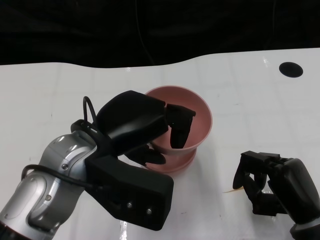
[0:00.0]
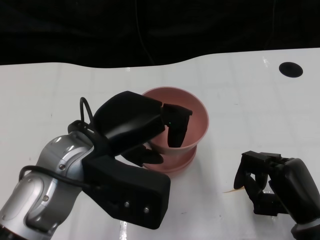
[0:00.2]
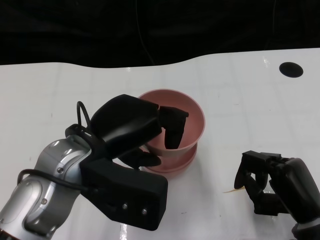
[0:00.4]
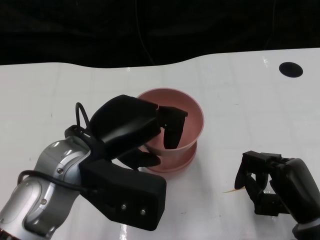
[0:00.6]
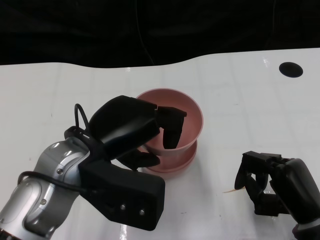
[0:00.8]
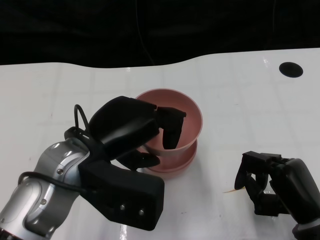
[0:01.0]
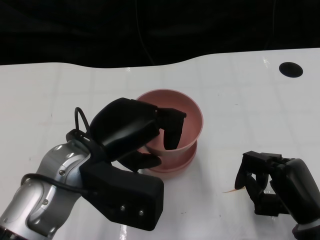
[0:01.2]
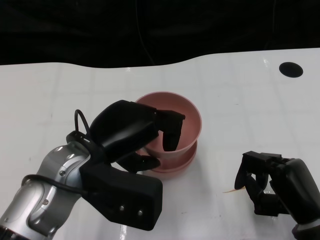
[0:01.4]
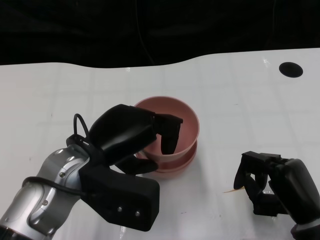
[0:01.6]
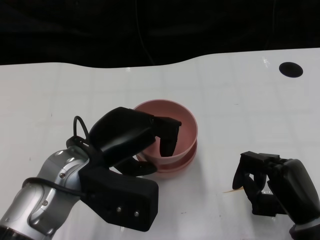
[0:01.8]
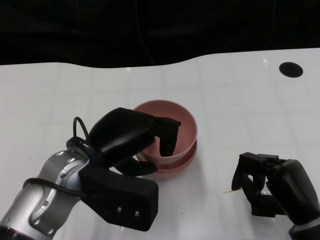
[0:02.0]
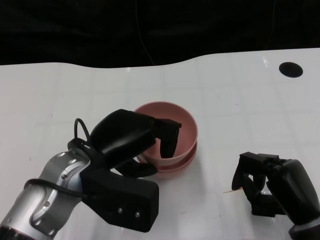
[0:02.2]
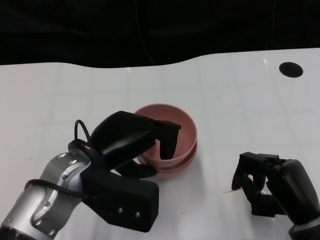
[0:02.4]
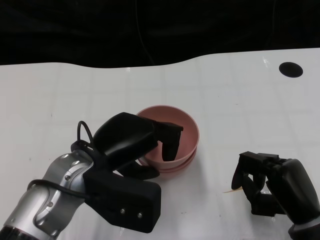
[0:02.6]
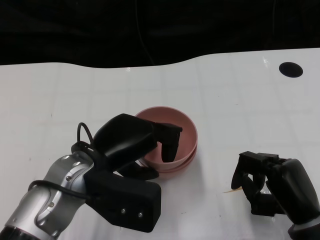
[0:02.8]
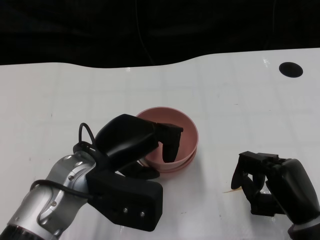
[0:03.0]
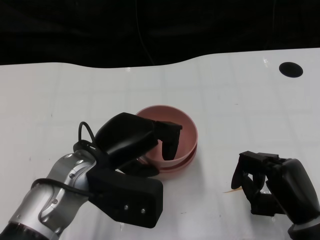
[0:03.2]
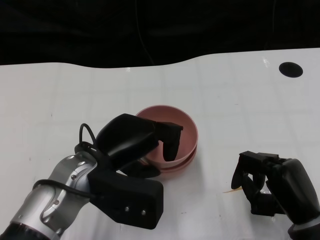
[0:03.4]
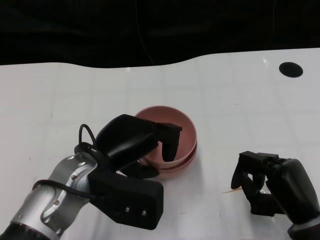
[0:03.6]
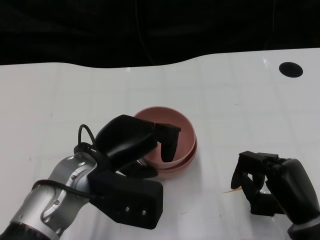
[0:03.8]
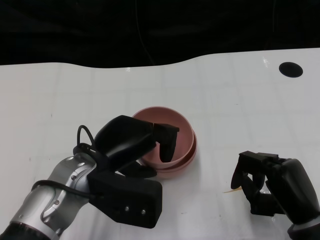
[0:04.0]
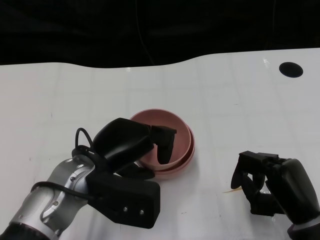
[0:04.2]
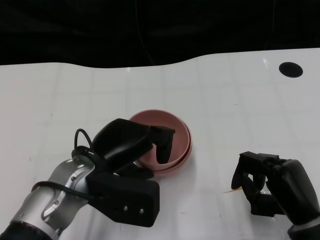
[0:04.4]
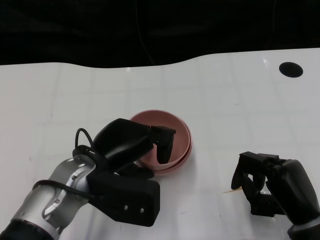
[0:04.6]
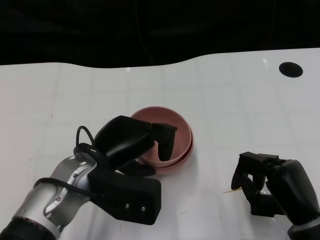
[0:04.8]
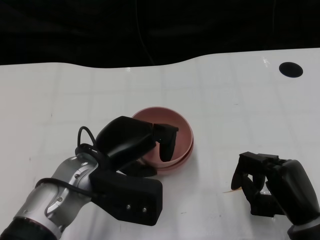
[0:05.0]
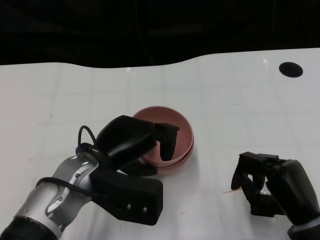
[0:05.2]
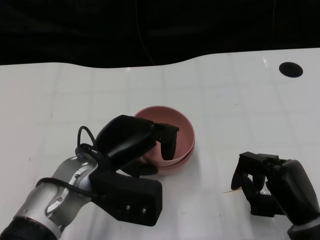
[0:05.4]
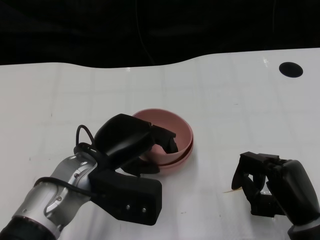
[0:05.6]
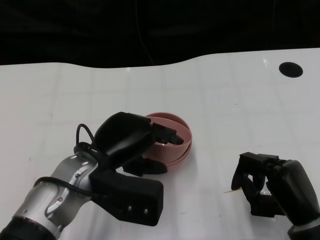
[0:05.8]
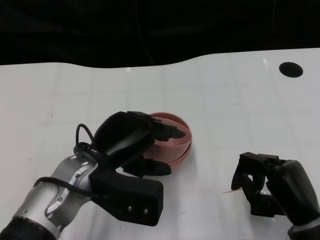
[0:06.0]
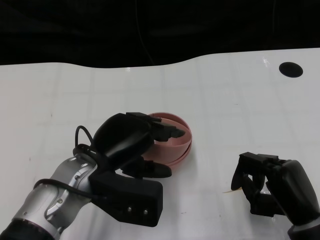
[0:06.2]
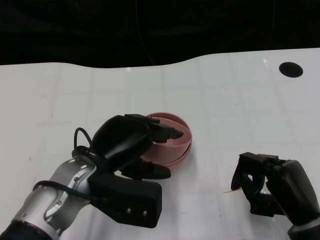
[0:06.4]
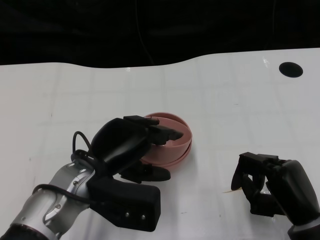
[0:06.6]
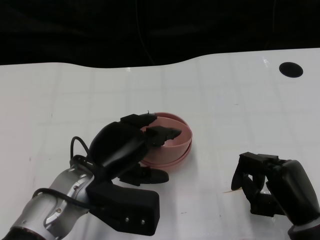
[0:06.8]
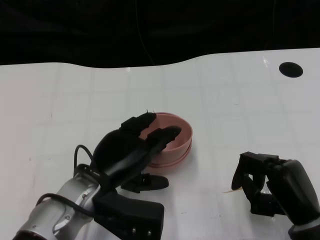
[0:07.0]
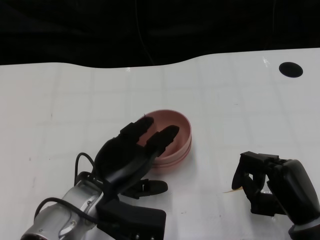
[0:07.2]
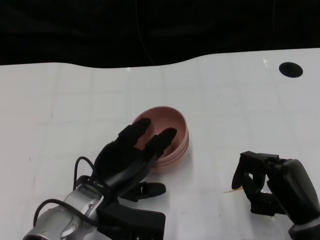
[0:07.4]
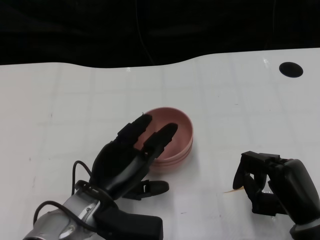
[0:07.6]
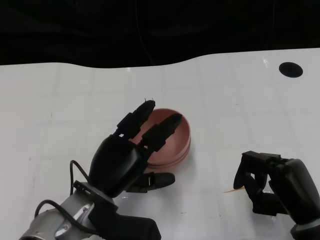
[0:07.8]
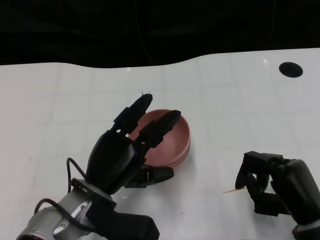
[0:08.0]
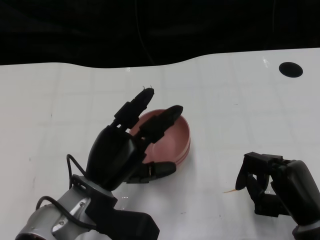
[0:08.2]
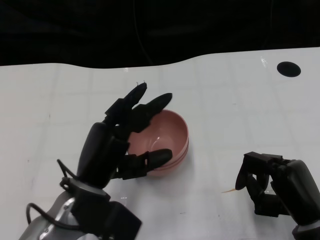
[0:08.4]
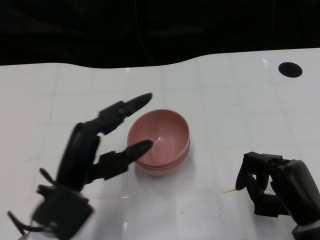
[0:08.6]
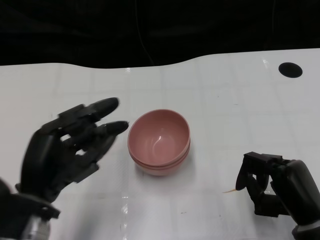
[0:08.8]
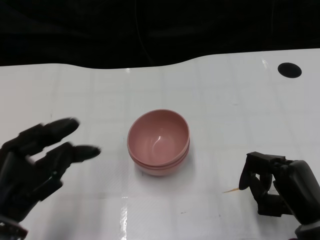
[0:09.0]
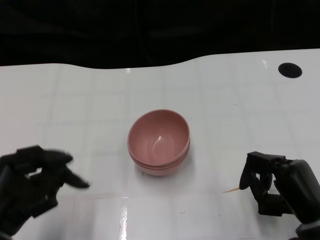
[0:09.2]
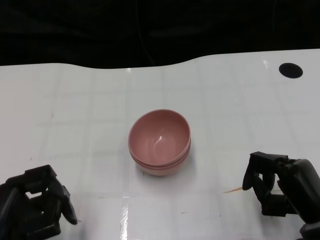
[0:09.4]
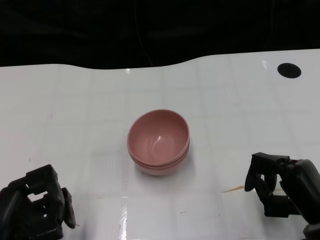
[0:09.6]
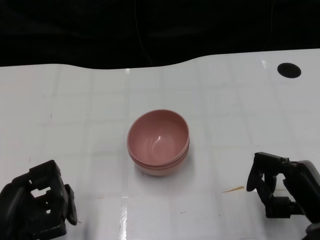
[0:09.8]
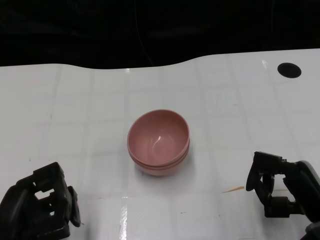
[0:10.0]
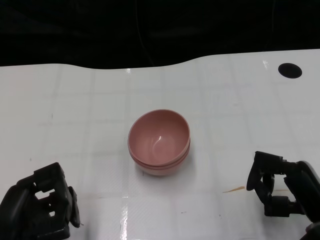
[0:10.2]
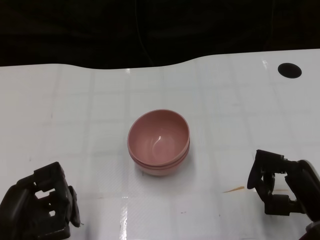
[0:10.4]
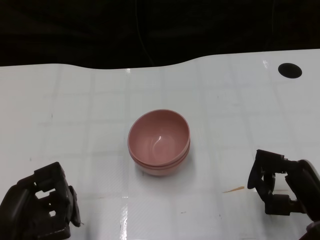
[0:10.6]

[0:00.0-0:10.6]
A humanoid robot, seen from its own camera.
Task of the whole recording: Pick up the bowl on one side of the table and place it on top of the middle bowl, then pick up the bowl on the other side of the table and place it on top of the middle bowls.
Step, 0:00.0 to 0:08.6: Place the bowl on the left onto the bowl in the middle with left gripper.
0:00.0 to 0:03.0: The hands stay close to where they were, moving slightly.
0:03.0 to 0:06.0: The hands stay close to where they were, moving slightly.
0:06.0 to 0:07.6: The left hand heads downward, covering about 5 cm.
0:07.6 to 0:09.0: The left hand travels to the left and backward by roughly 15 cm.
0:09.0 to 0:10.6: The hands stay close to where they were, moving slightly.

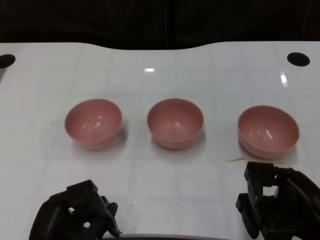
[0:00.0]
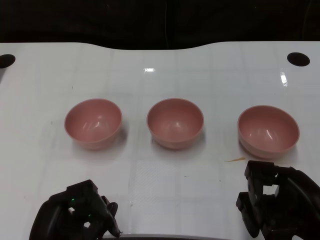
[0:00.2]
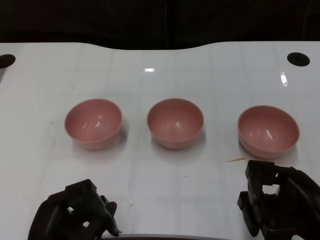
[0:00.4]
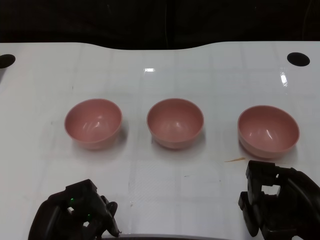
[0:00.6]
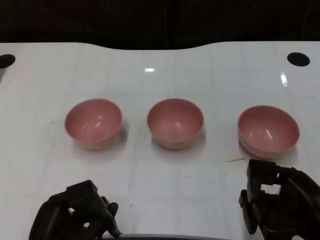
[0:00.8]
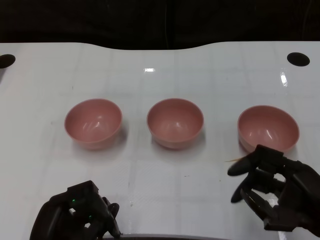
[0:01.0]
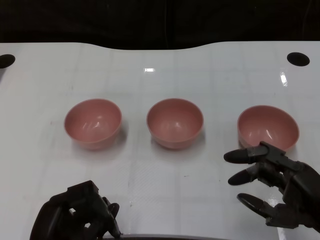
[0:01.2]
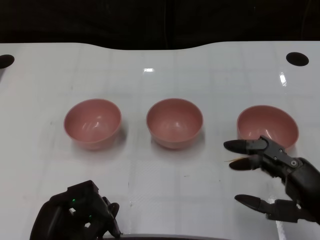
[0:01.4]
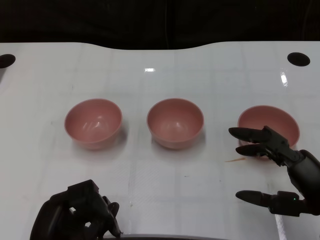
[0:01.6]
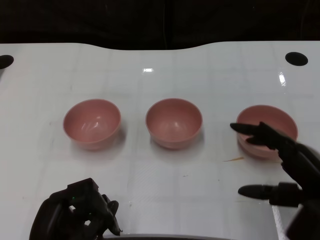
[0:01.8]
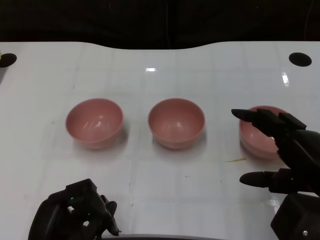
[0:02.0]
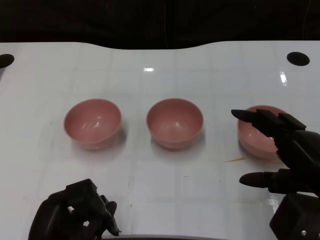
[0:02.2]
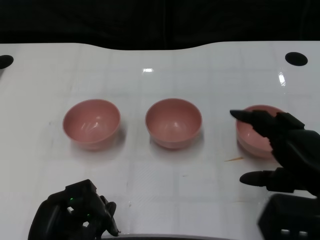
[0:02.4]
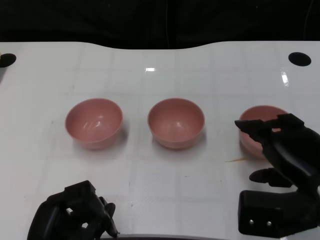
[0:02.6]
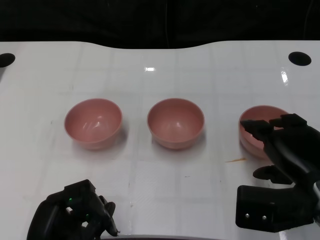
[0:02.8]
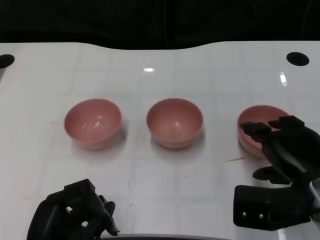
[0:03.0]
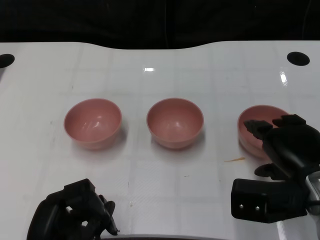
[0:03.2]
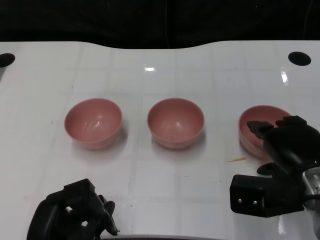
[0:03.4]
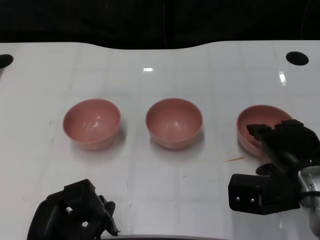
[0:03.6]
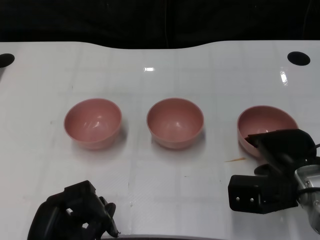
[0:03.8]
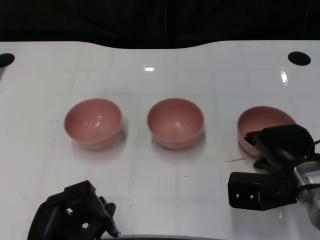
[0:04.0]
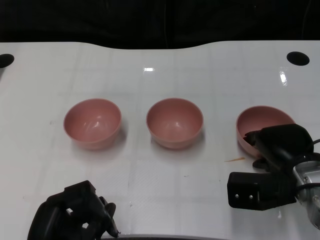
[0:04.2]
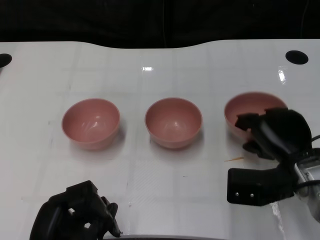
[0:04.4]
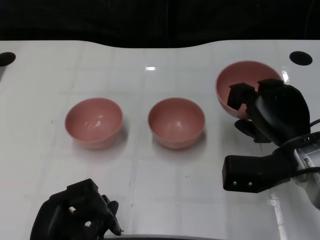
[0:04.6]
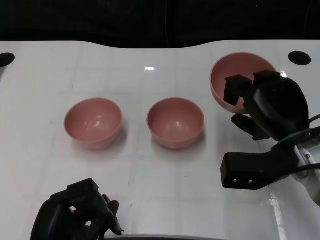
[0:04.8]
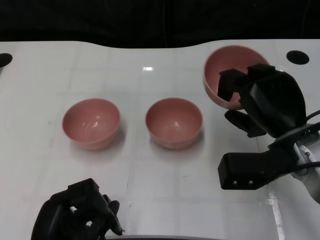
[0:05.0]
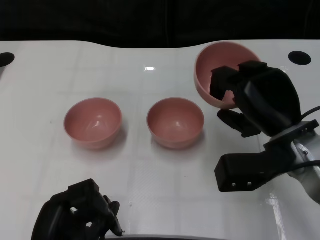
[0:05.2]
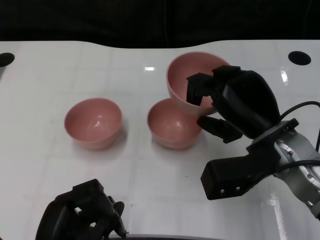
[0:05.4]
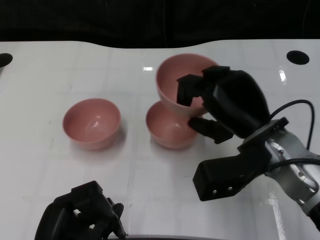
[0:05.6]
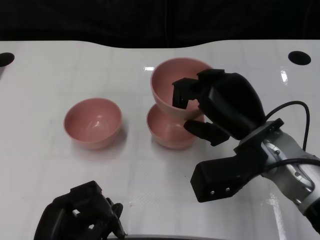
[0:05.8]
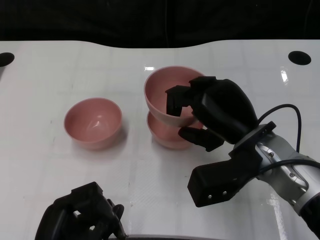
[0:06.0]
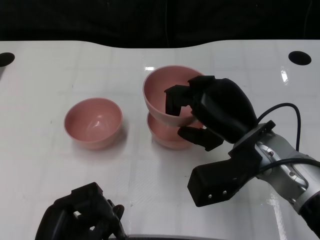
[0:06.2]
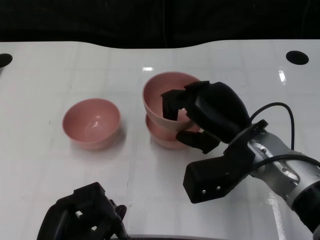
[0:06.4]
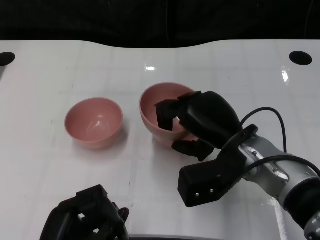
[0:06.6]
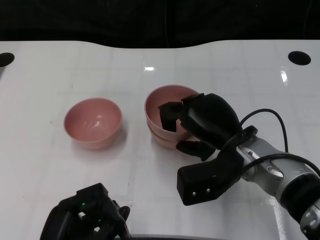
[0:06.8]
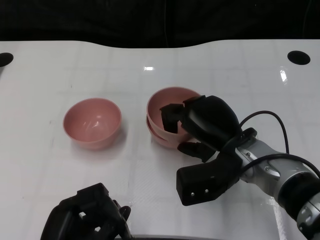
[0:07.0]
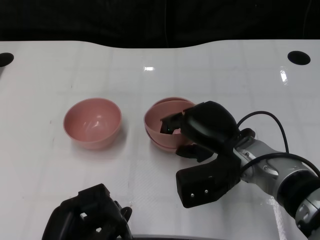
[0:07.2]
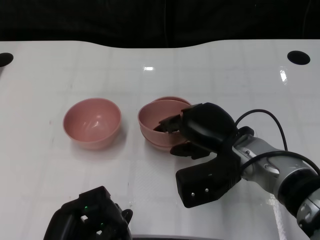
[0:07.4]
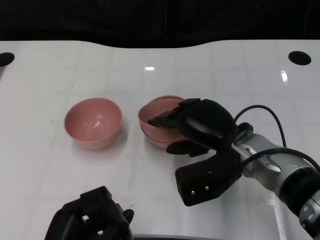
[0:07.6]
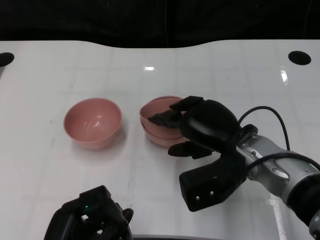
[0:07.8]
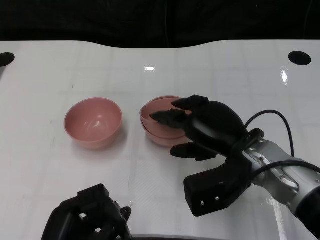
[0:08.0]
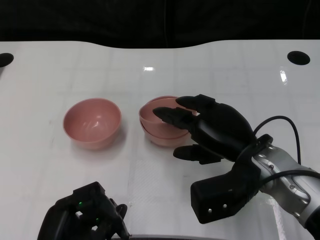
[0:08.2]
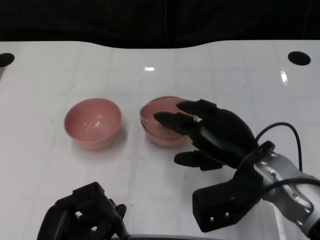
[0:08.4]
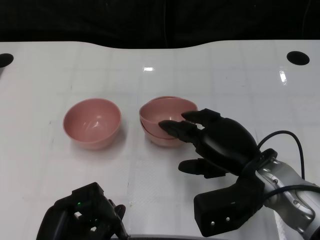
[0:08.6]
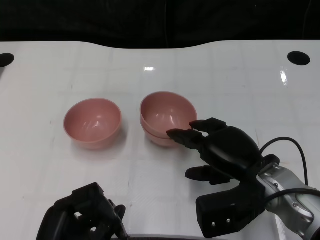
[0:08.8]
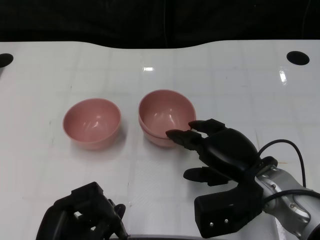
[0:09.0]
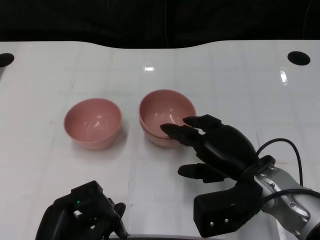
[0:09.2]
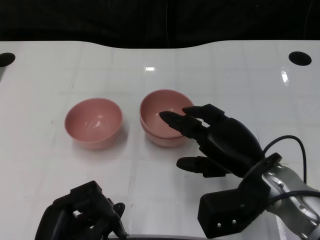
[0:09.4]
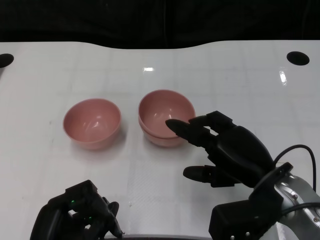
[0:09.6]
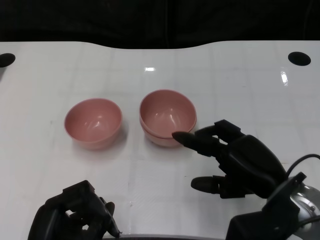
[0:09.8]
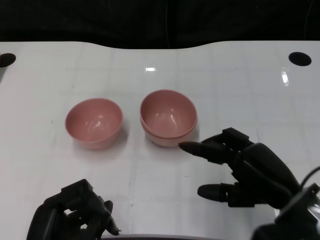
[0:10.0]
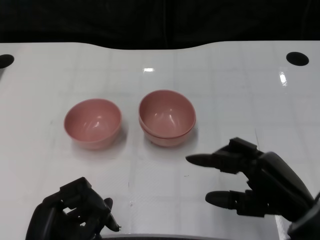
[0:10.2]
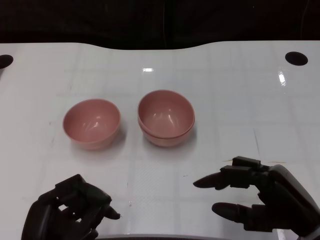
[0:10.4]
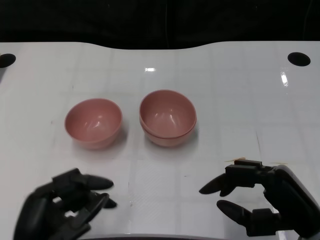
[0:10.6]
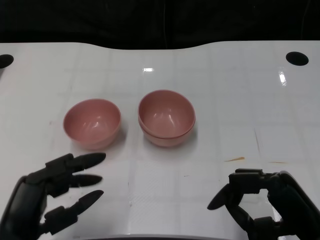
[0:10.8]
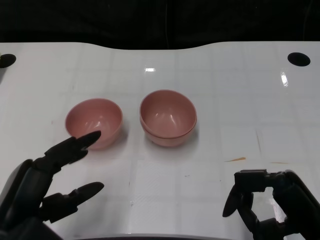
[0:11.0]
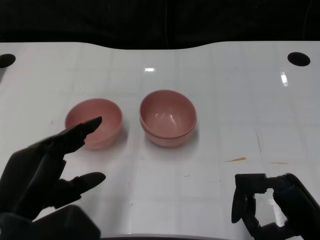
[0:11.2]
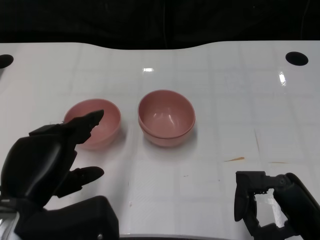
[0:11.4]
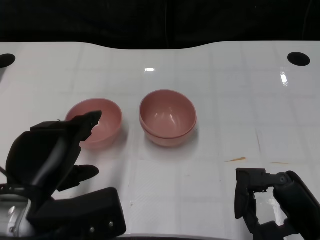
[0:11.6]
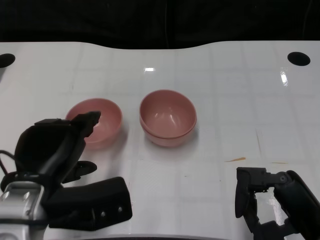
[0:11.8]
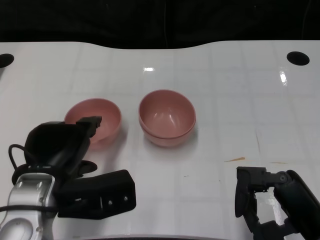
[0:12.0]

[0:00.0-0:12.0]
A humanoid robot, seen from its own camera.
Task of the whole recording: Pick up the bowl on one side of the table and place it on top of the middle bowl, then pick up the bowl on the other side of the table and place it on top of the middle bowls.
Step, 0:00.8 to 0:04.2: Grasp the bowl on the right with the right gripper.
Step, 0:04.4 to 0:09.4: Place the bowl on the right onto the bowl in the middle with right gripper.
0:01.6 to 0:03.0: The right hand goes roughly 5 cm forward.
0:03.0 to 0:04.4: The right hand ends up roughly 5 cm from where it was.
0:04.4 to 0:06.0: The right hand is displaced to the left and upward by approximately 10 cm.
0:07.6 to 0:09.0: The right hand ends up approximately 5 cm from where it was.
0:09.0 to 0:10.4: The right hand travels backward and to the right by some 10 cm.
0:10.4 to 0:12.0: The left hand travels forward and upward by some 10 cm.
